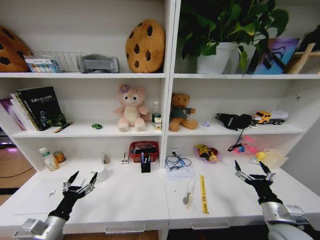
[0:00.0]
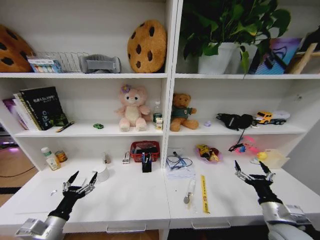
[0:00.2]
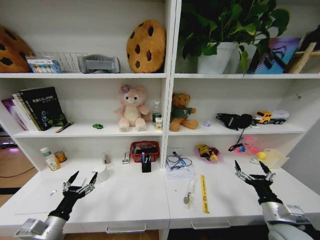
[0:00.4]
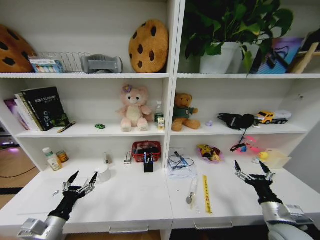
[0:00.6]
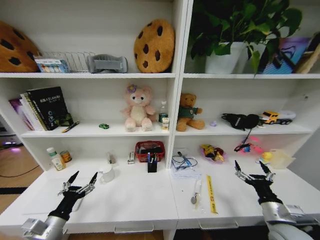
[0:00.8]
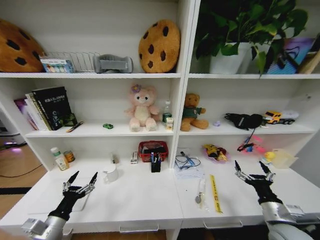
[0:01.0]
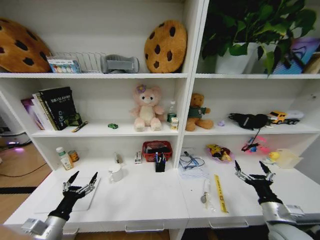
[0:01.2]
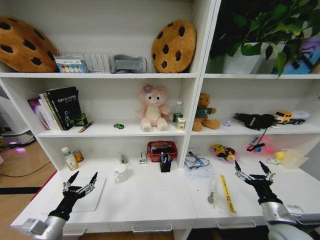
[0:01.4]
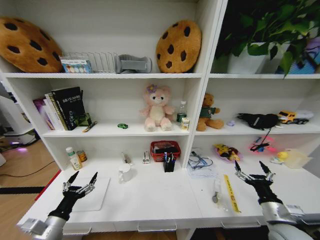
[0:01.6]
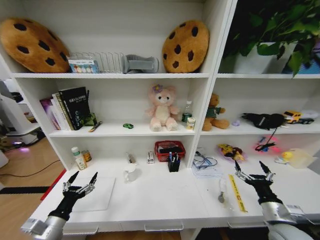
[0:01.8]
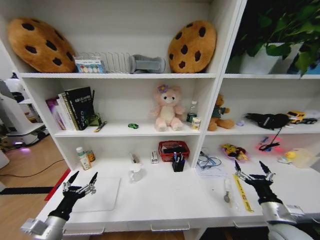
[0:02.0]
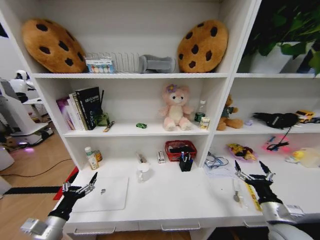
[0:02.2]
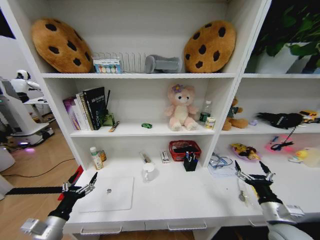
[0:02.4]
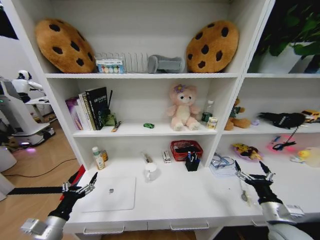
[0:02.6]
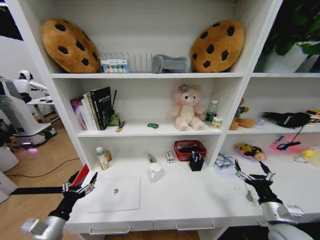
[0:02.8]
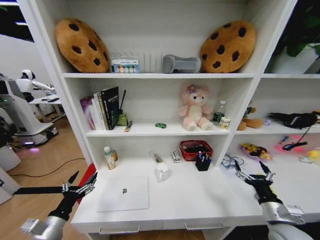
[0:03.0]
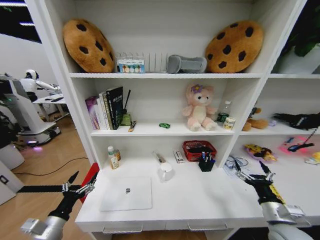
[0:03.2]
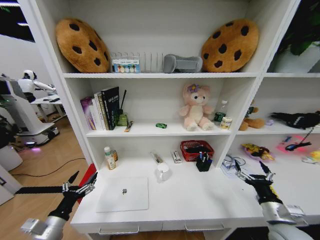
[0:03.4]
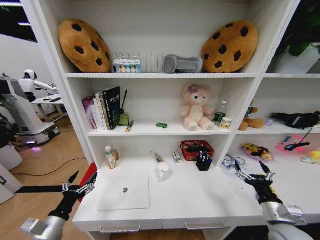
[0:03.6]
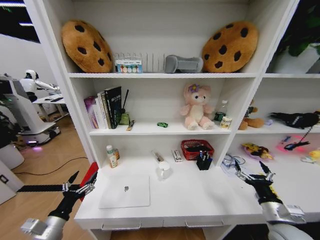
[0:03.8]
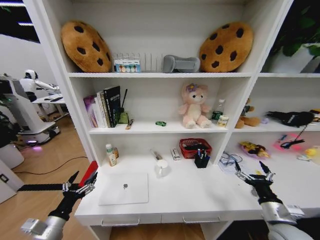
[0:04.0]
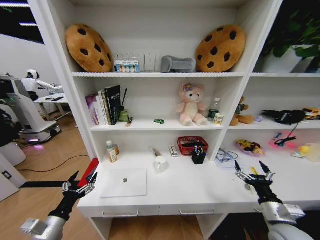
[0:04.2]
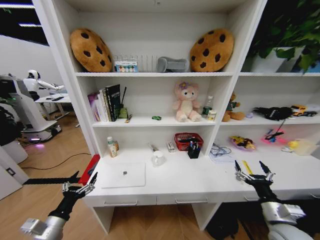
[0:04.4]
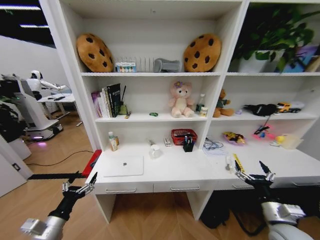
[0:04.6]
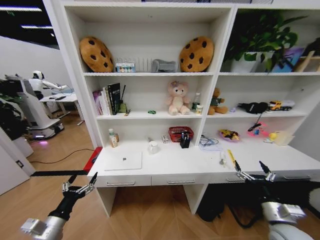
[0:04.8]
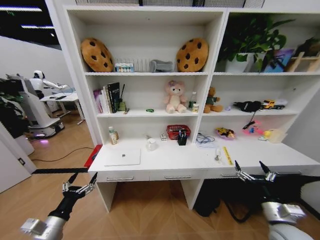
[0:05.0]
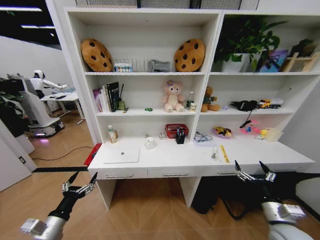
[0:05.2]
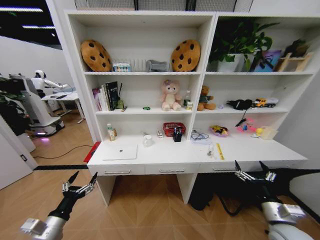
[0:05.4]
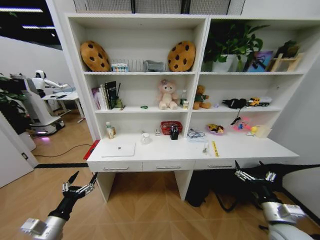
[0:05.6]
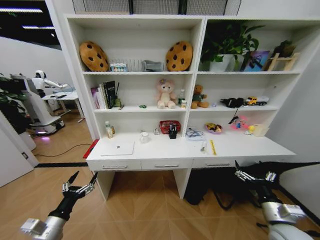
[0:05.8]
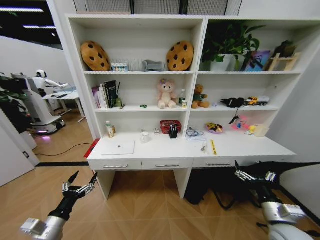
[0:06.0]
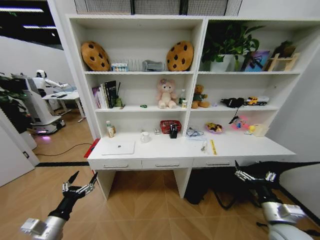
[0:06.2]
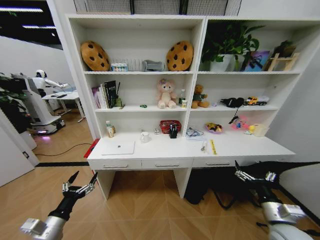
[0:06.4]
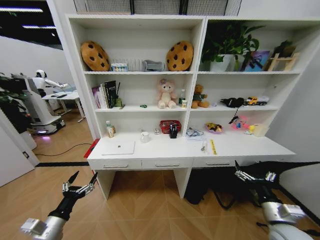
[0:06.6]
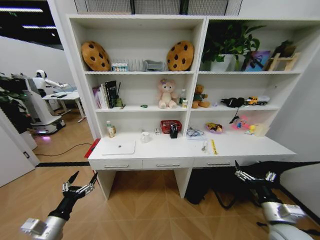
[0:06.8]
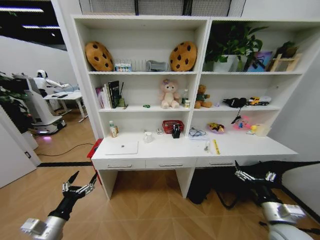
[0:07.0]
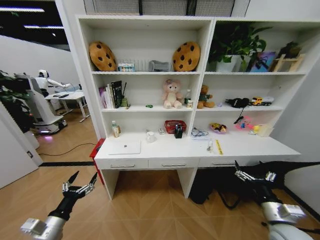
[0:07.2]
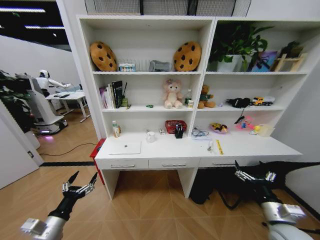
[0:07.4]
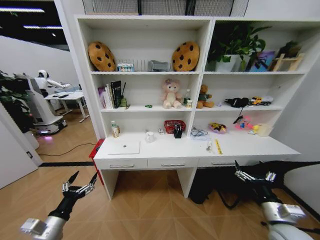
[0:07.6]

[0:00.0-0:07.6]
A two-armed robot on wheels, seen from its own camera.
Task of the whole recording: Organize the objects on the table.
0:06.0 to 0:07.6: Both grippers stay put.
